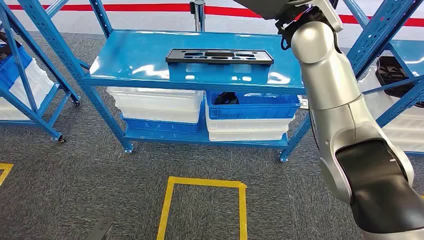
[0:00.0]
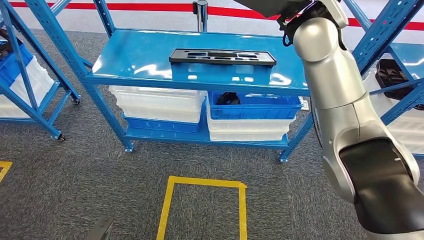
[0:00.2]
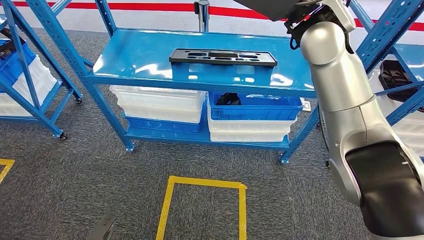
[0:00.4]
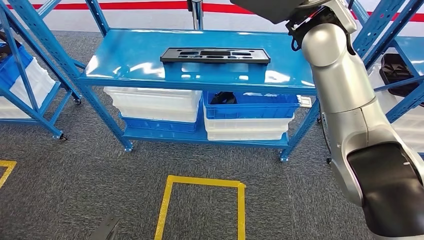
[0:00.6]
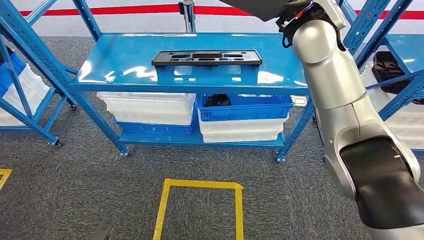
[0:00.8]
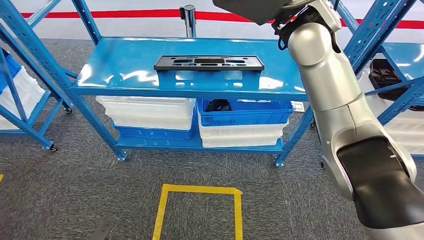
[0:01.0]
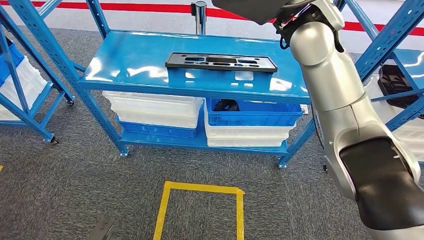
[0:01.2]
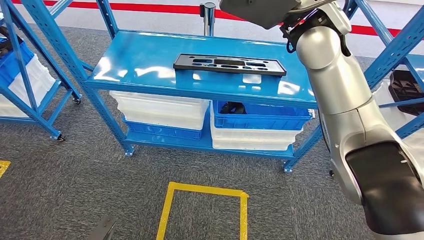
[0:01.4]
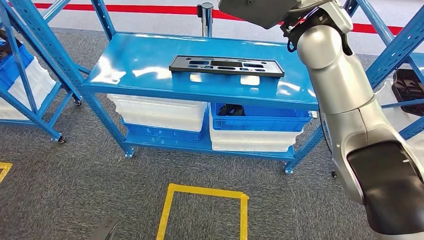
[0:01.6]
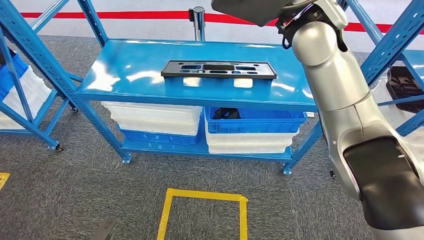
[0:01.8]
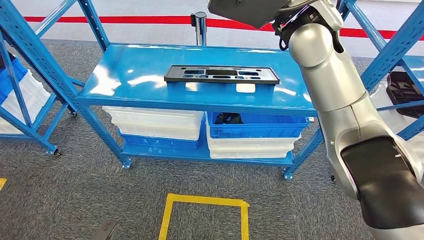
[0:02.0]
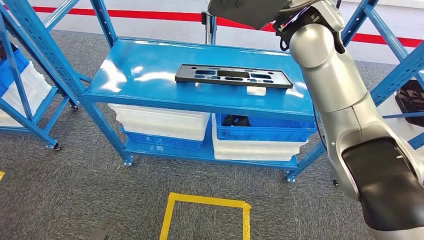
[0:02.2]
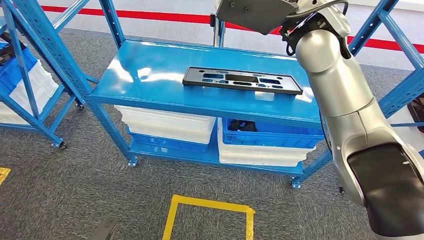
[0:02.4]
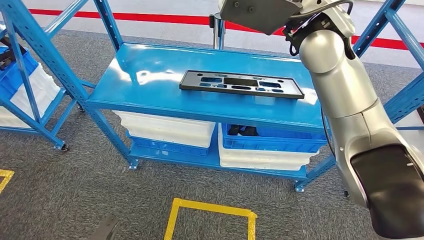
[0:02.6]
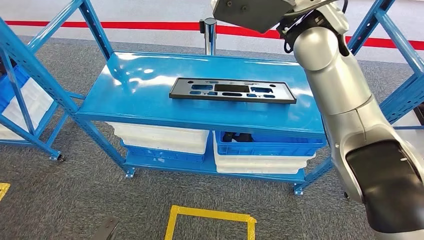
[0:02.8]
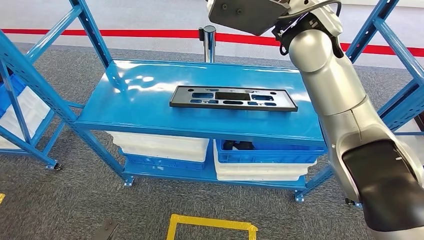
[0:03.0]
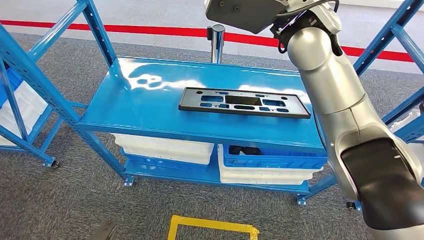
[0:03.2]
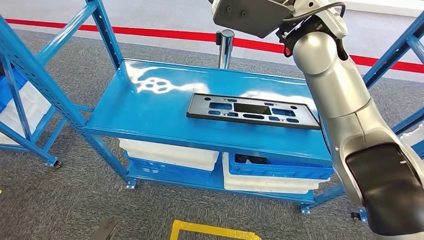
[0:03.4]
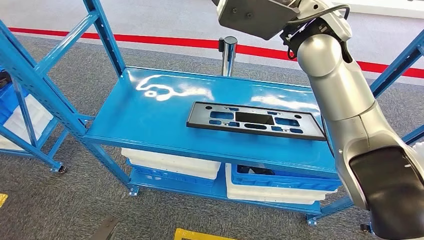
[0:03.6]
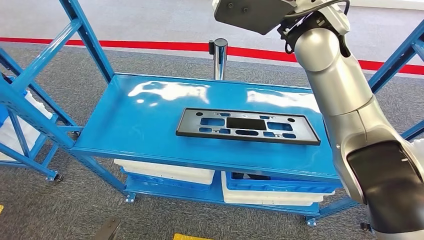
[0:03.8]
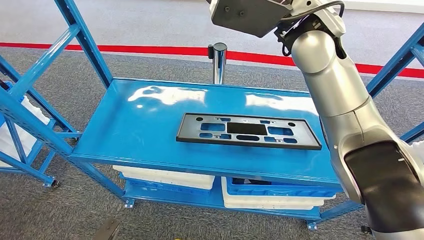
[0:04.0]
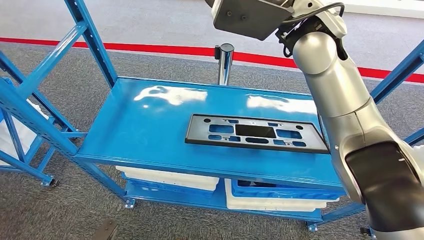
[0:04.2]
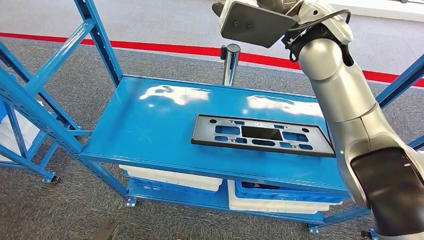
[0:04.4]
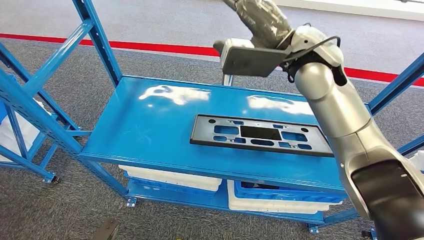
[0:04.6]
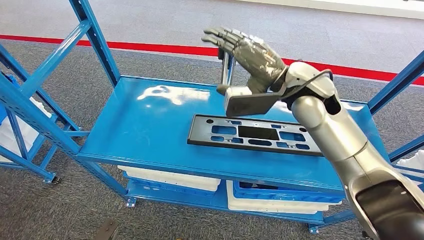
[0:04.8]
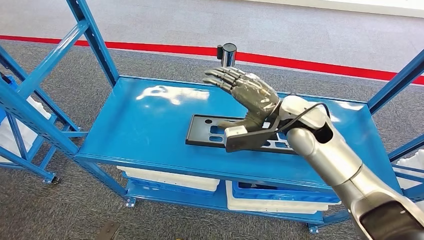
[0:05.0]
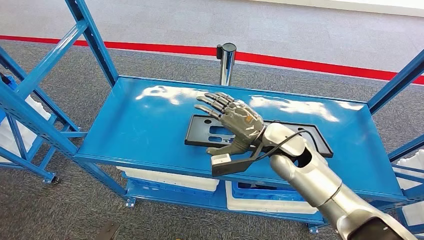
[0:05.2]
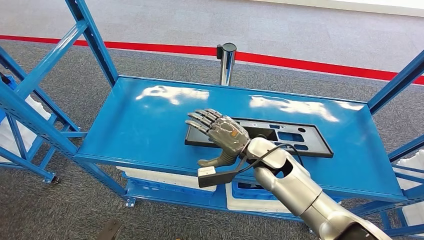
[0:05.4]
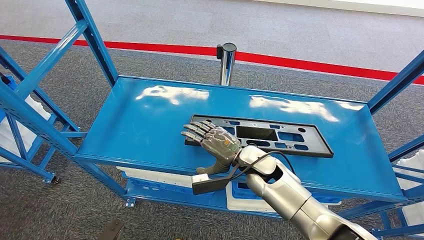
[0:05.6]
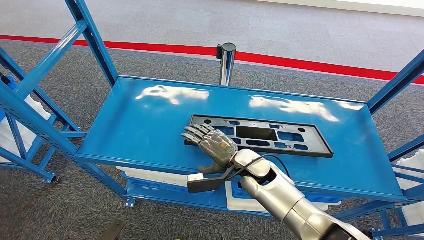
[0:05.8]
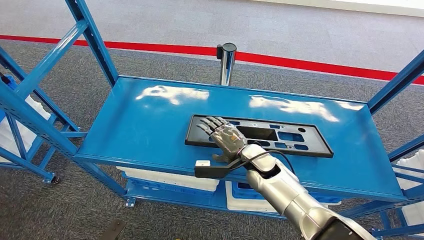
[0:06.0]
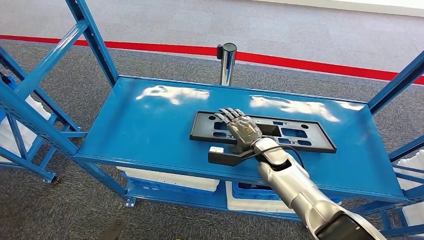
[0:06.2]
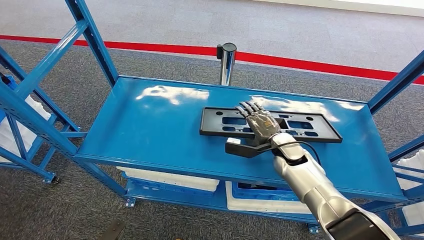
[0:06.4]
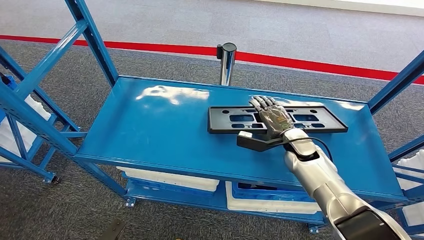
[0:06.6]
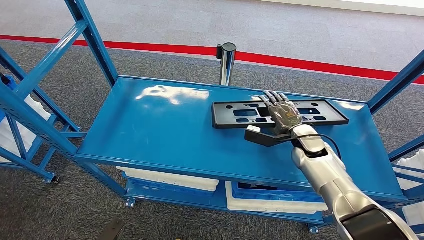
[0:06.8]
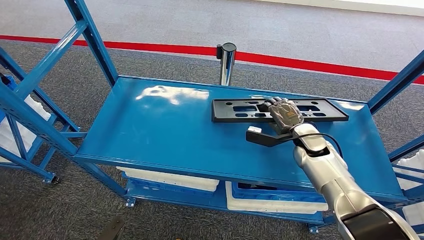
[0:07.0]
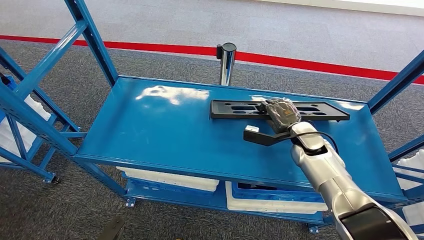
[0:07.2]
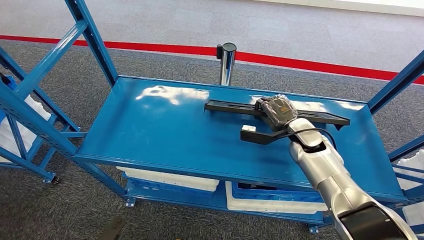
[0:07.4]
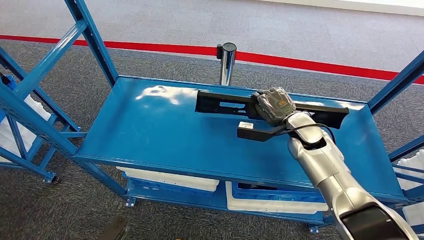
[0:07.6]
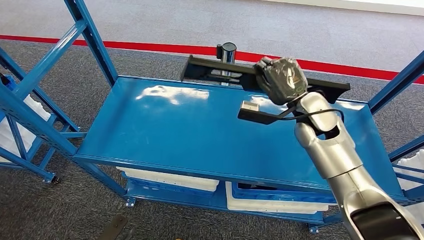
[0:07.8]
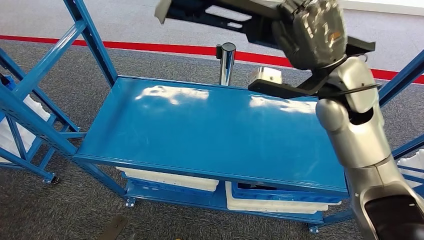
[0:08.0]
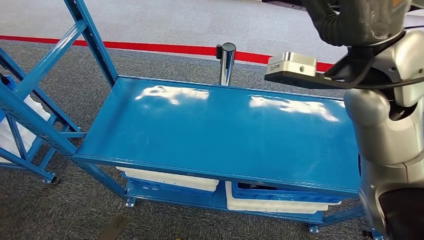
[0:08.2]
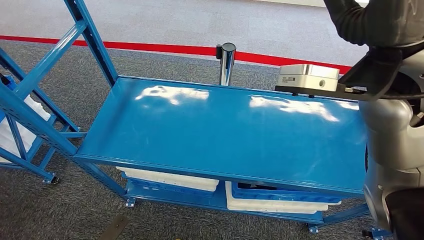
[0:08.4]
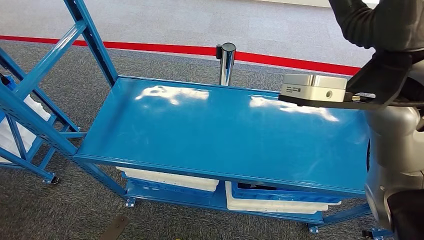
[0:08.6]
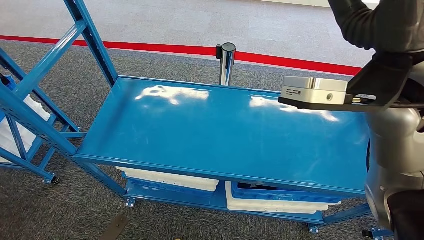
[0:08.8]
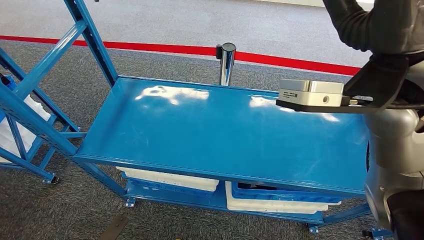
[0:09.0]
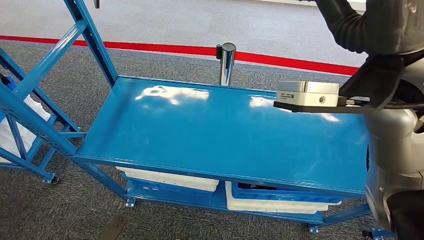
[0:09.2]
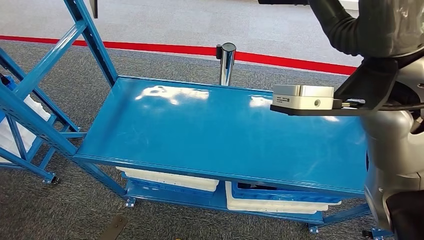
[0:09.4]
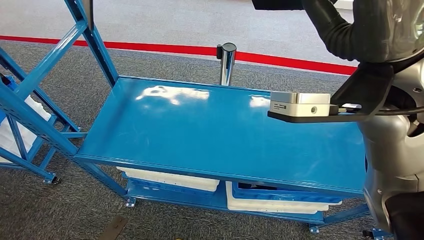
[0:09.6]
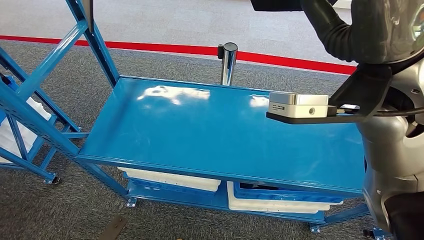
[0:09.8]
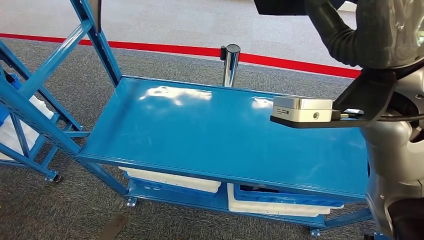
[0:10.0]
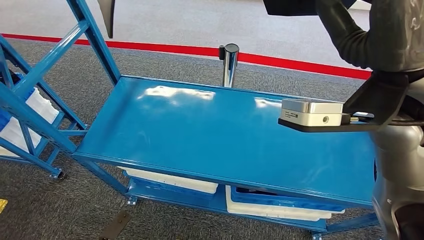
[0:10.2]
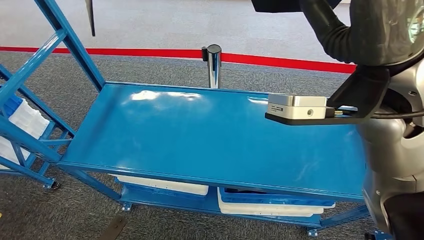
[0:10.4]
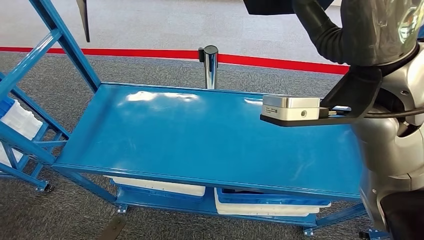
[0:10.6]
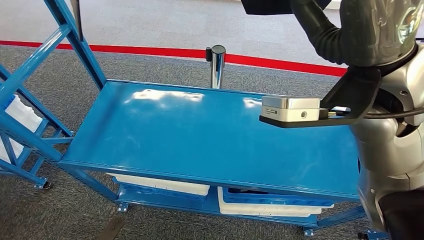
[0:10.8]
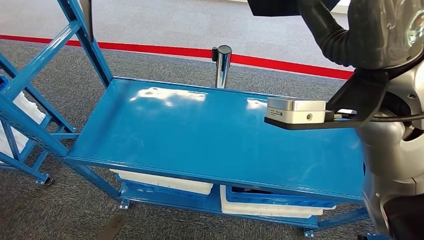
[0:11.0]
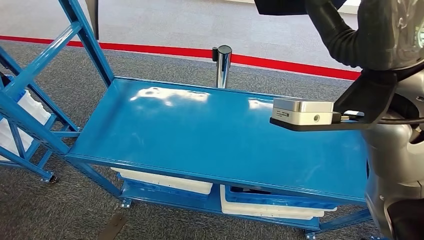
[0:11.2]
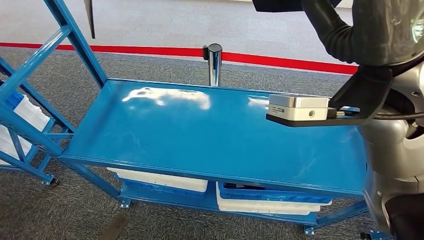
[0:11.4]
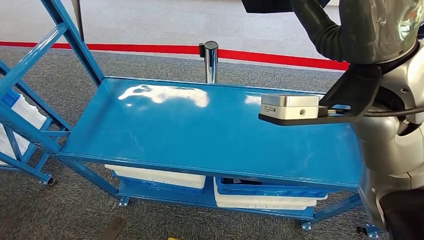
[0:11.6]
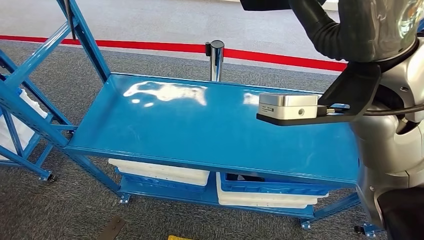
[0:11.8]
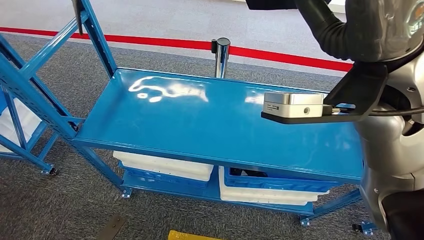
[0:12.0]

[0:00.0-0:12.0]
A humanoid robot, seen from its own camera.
Step, 0.0 to 7.8 s: Pick up the large material from the shelf.
6.0 to 7.6 s: The right hand travels to the right, upward and forward by about 15 cm.

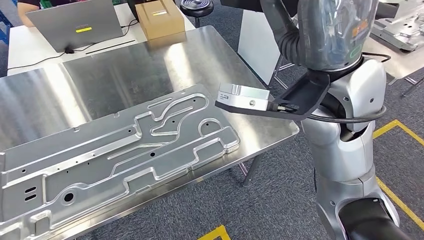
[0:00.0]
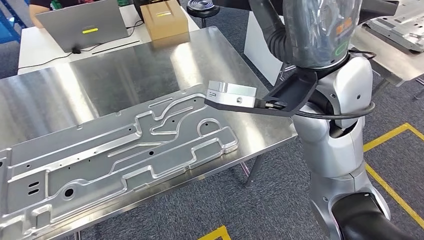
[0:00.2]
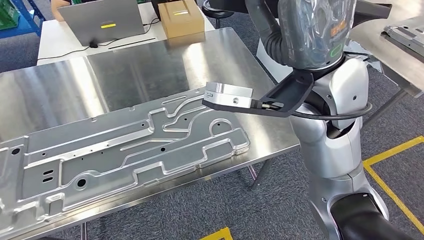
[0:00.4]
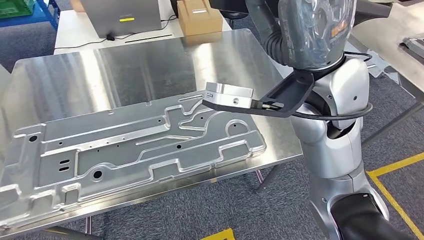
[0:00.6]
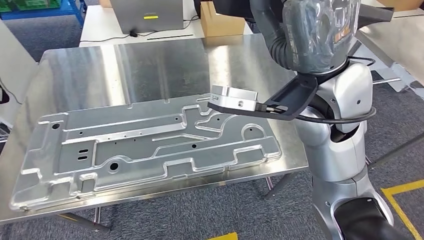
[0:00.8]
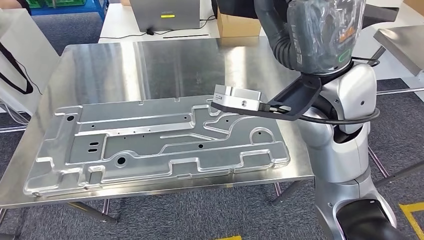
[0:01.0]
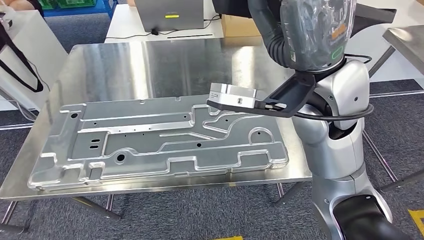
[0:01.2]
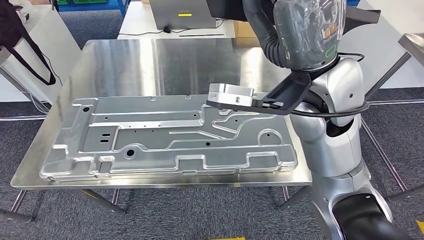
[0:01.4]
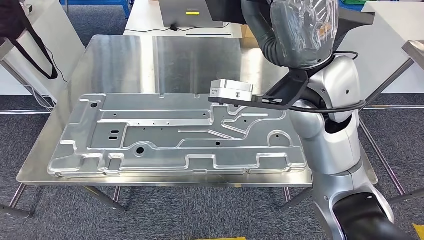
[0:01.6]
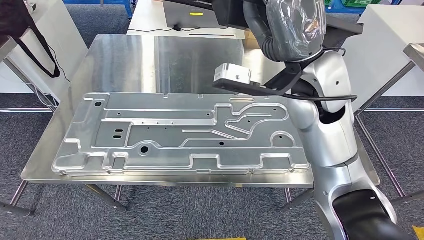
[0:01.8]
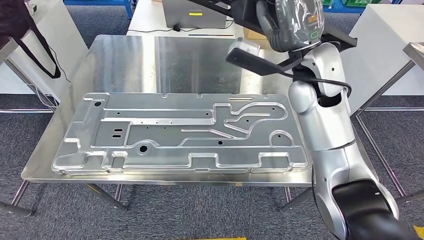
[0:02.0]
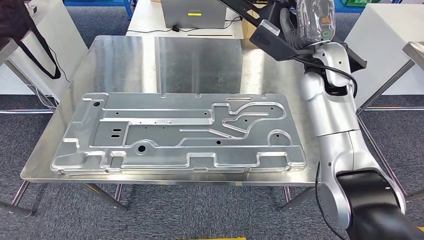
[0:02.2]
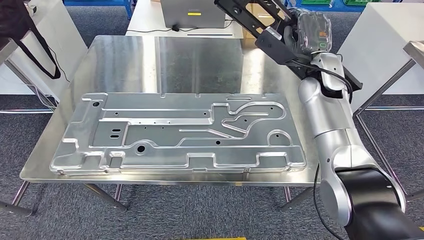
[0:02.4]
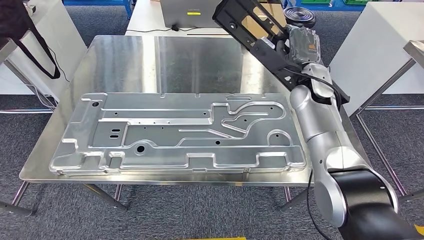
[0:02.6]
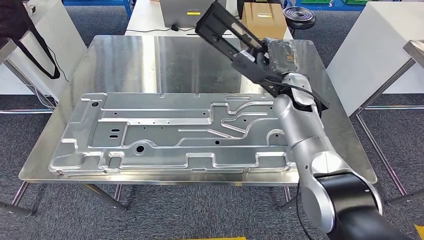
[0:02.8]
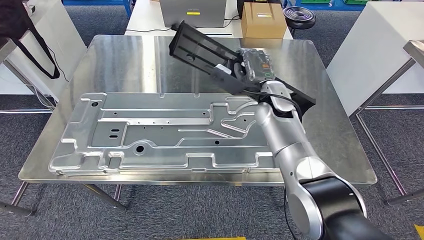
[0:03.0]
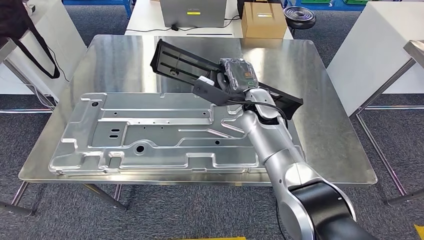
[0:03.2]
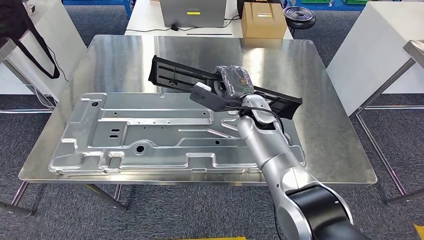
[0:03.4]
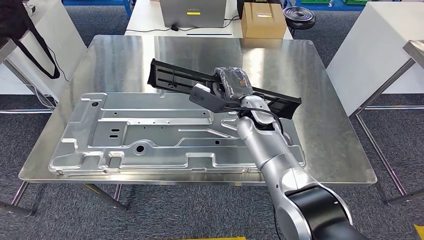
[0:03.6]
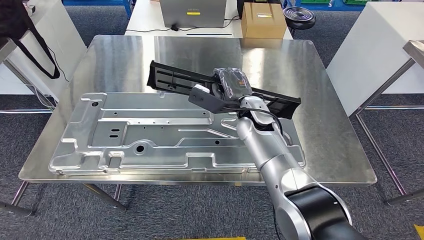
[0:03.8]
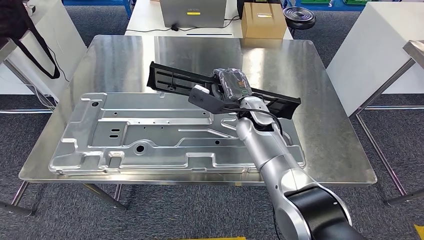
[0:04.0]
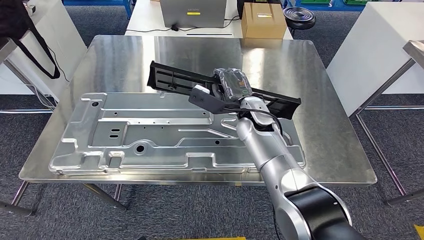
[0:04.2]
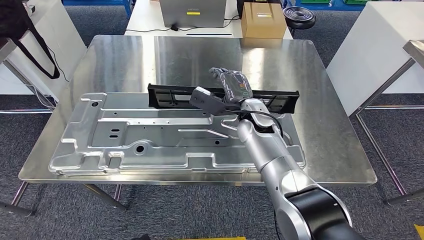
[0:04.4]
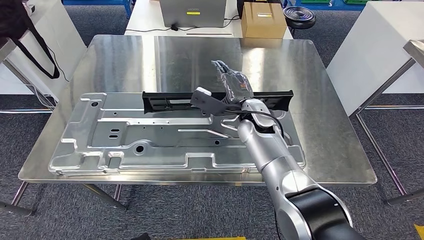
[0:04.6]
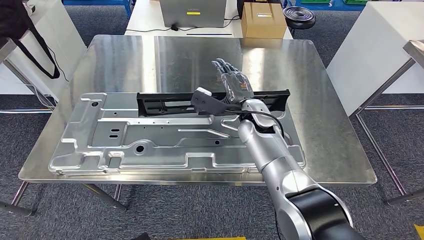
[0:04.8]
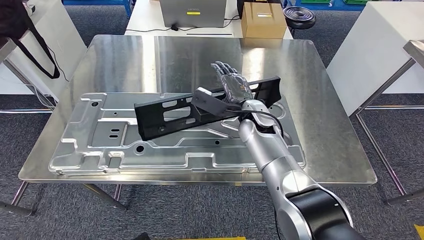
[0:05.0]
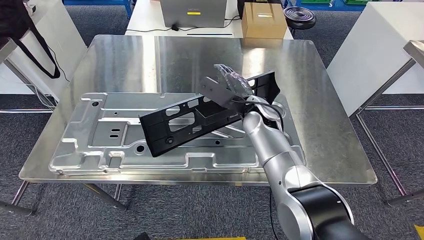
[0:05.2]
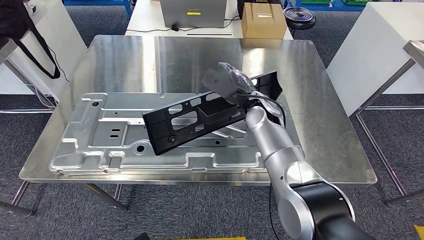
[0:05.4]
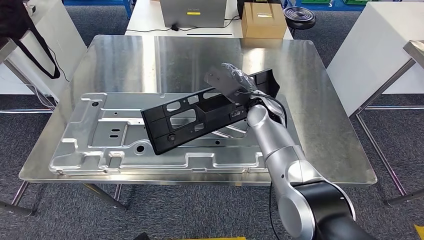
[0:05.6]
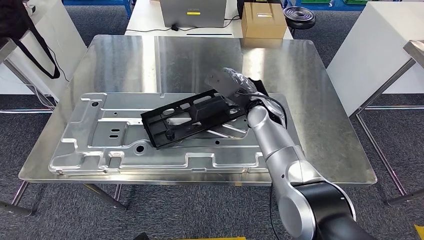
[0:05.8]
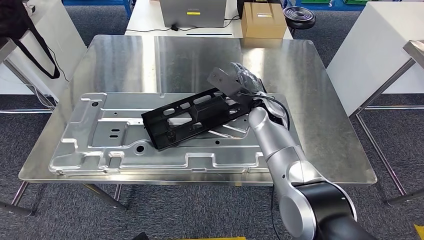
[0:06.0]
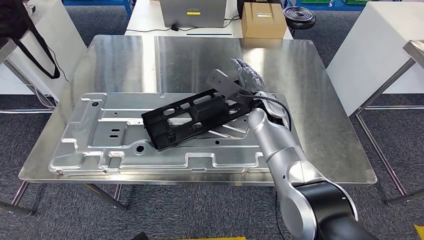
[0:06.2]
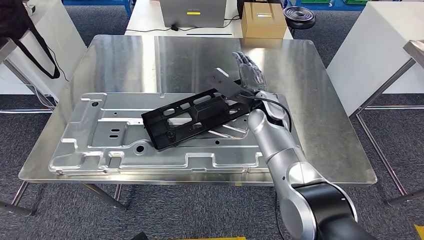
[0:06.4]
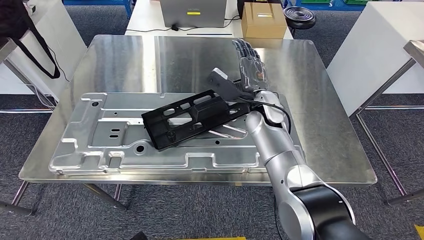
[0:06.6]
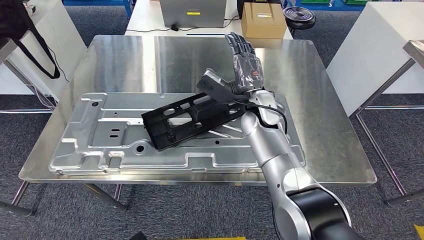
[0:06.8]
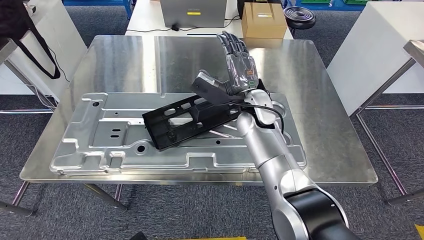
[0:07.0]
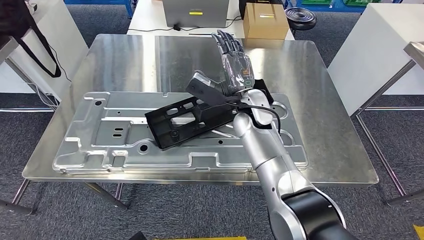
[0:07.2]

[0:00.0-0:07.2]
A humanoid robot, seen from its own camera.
Step, 2.2 to 7.2 s: Insert the large material into the corresponding slot on the workbench.
